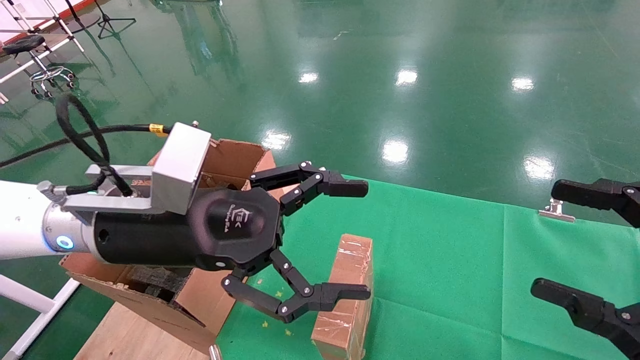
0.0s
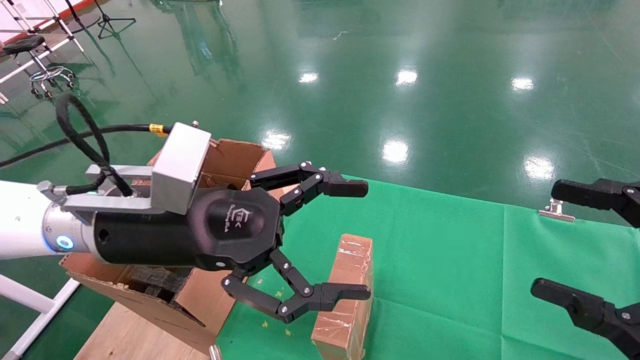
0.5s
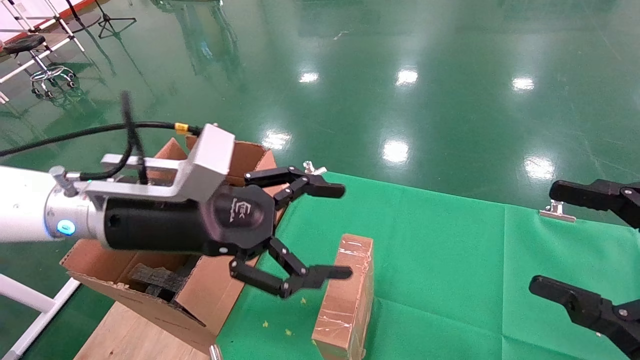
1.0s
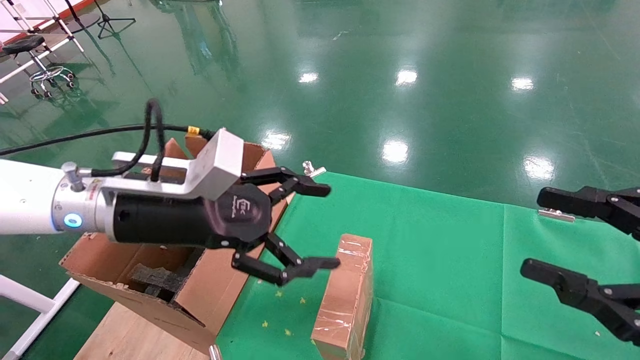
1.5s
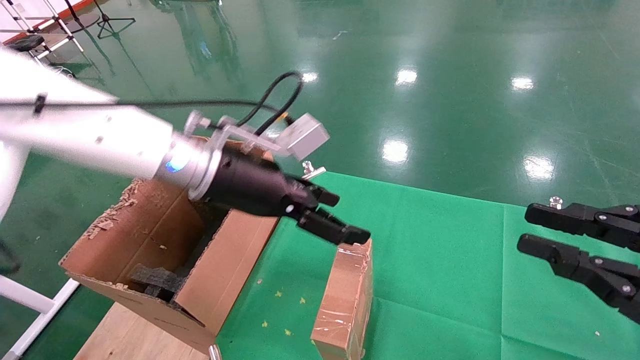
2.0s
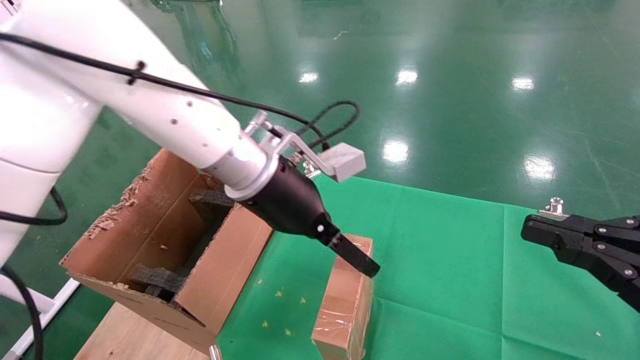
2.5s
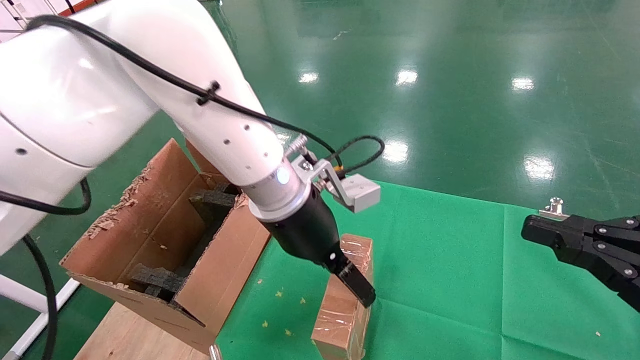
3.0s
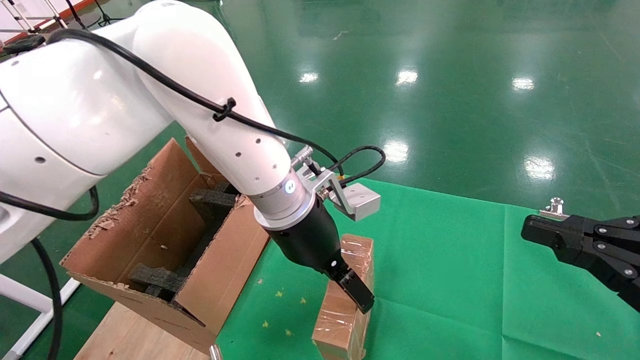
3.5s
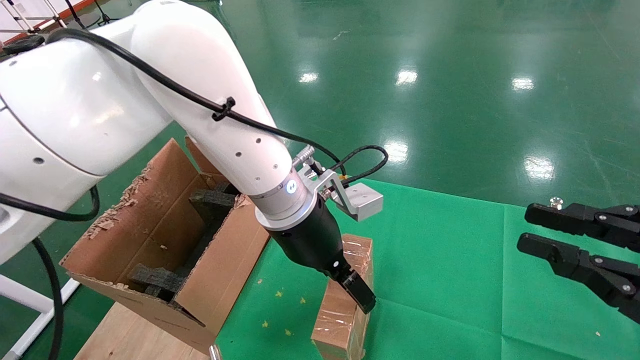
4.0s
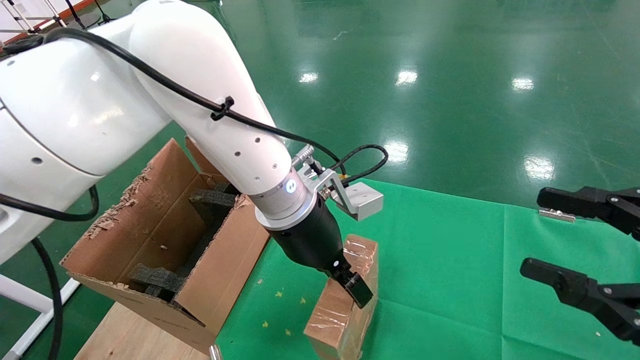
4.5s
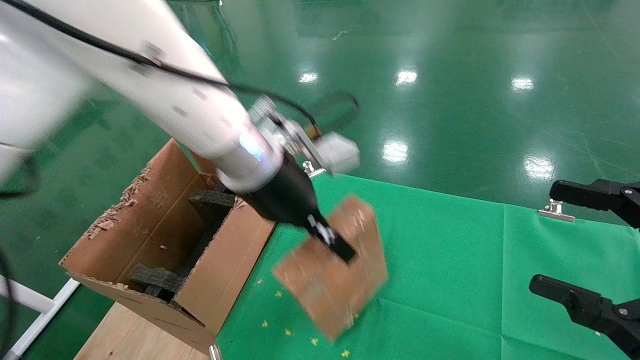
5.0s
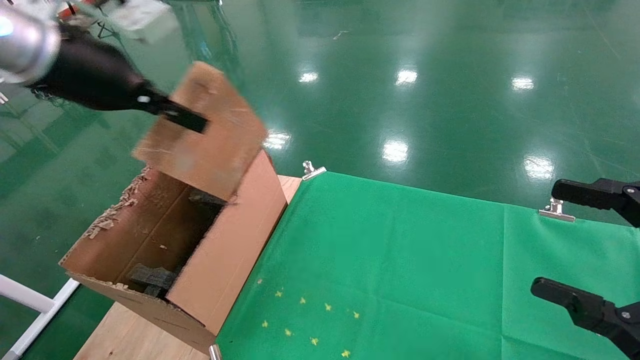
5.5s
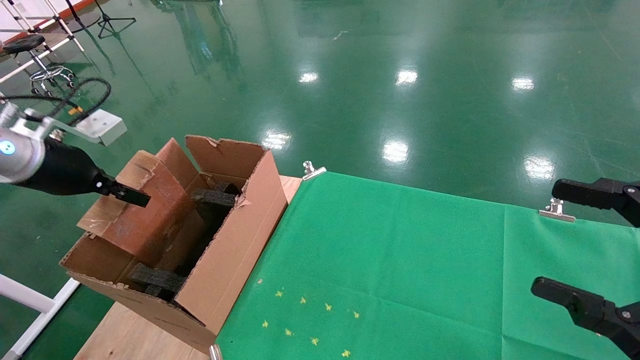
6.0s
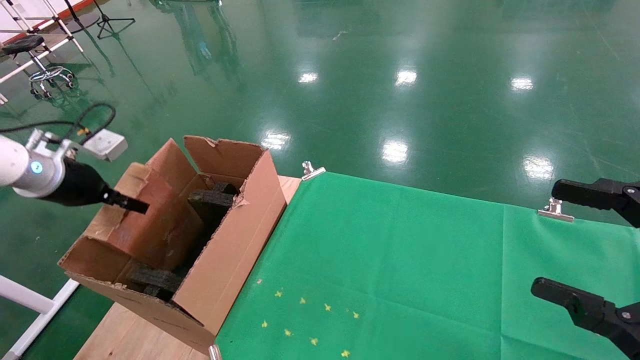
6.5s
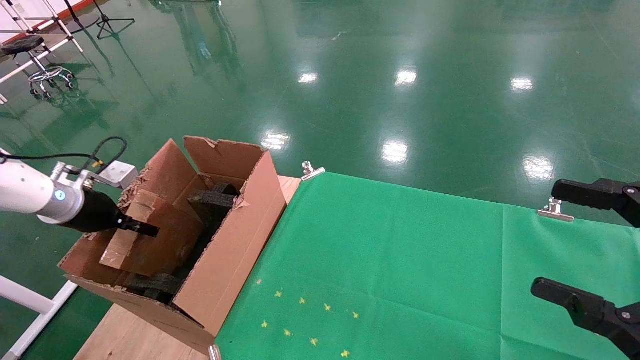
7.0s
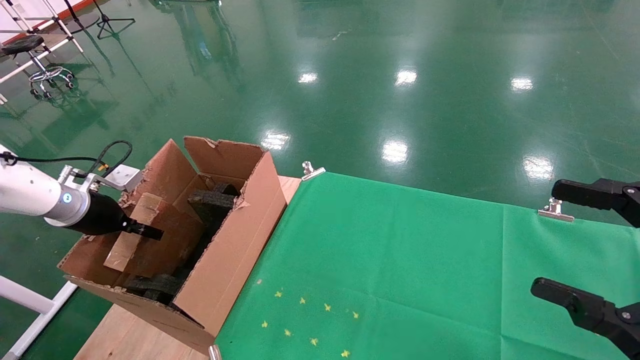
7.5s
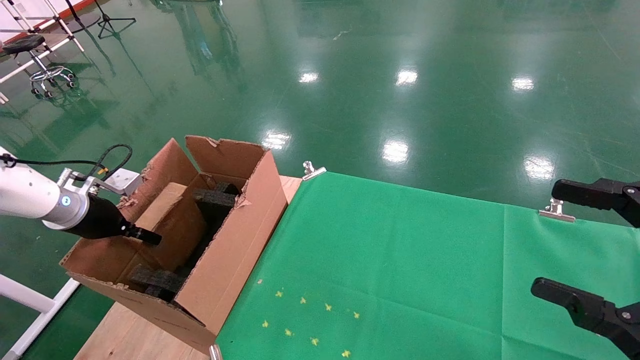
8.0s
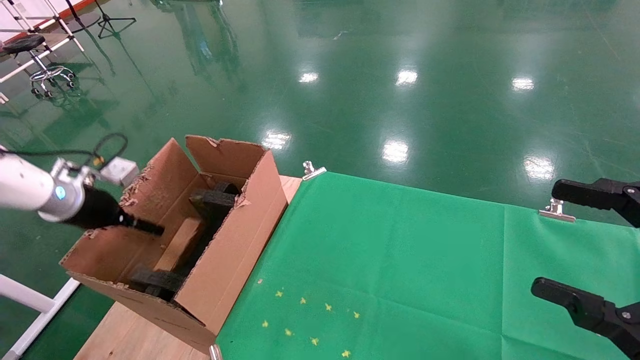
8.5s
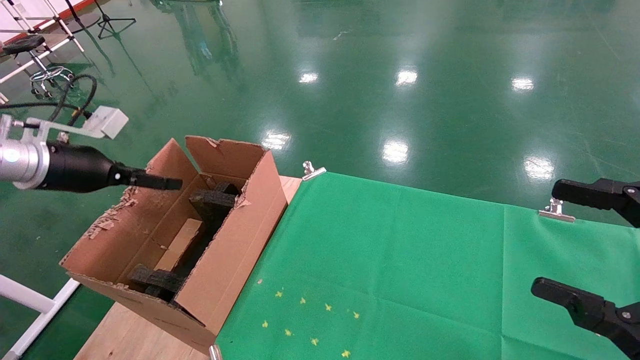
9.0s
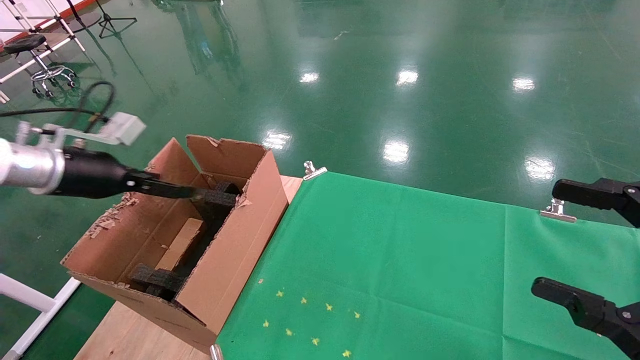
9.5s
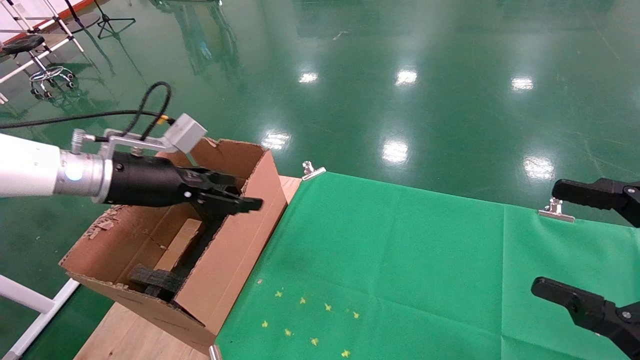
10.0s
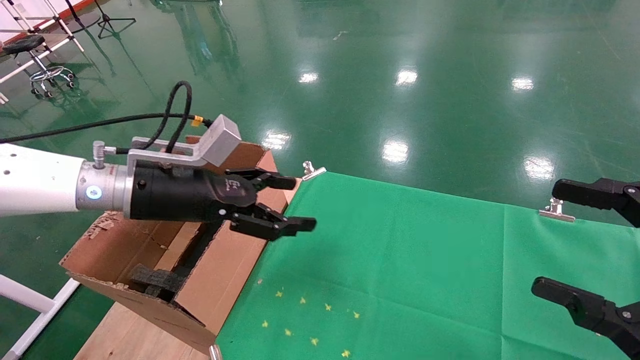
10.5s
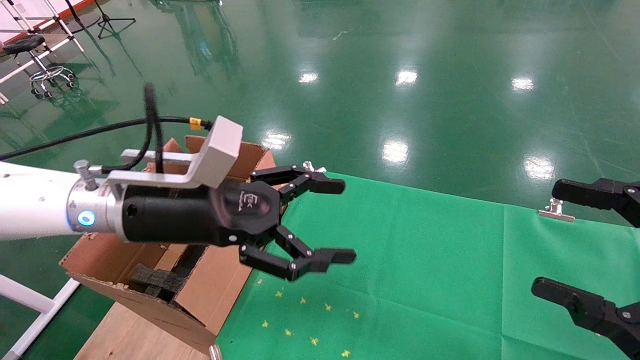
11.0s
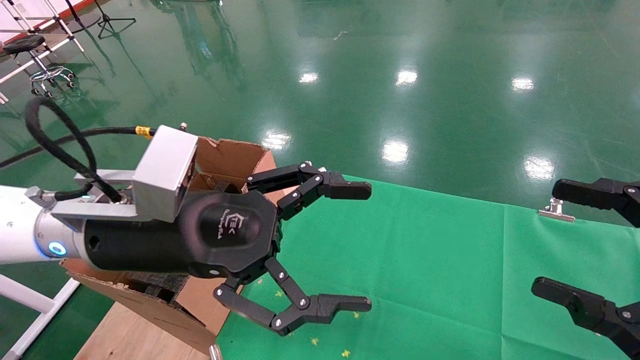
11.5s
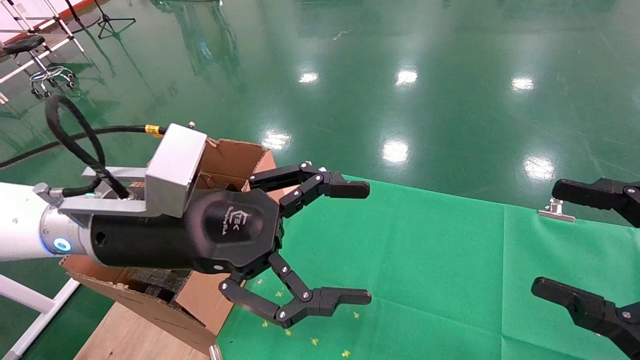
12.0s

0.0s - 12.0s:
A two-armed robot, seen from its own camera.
Task of the whole recording: using a robotic arm to pick up a cardboard box and palace it the carton.
Step, 1.0s - 4.5s: Pick up the mouse and the power cord paper box.
Step, 5.0s - 9.5s: Place the mouse and the power cord paper box into the container.
0.0s - 2.0s: The left gripper heads forward, covering about 10 cm. Meanwhile the right gripper closes.
2.0s - 4.0s: The left gripper heads to the right, covering about 10 cm.
4.0s - 6.0s: The right gripper opens its fingers. Meanwhile the left gripper is displaced to the left by about 35 cm, and closes up.
6.0s - 8.0s: The left gripper goes approximately 15 cm downward, to the left and forward.
8.0s - 10.0s: The left gripper shifts some 15 cm to the right and upward, and opens up.
10.0s - 12.0s: The left gripper is displaced to the right and backward by roughly 15 cm.

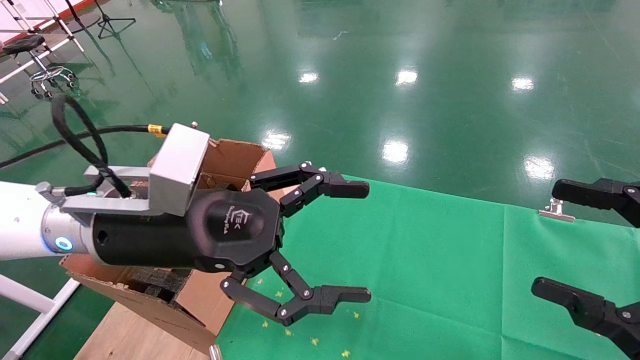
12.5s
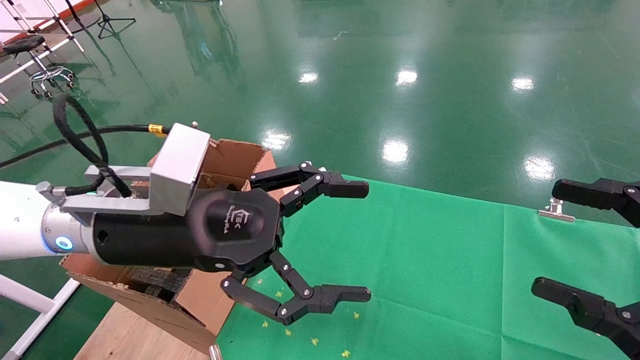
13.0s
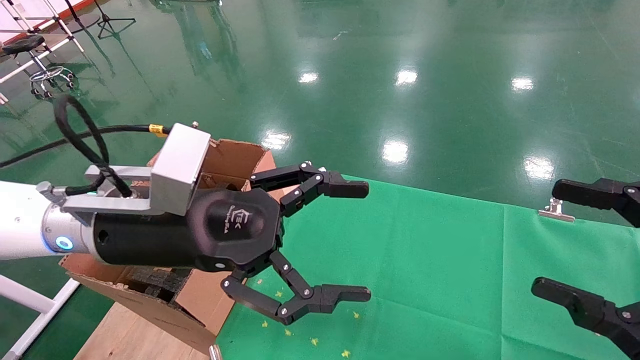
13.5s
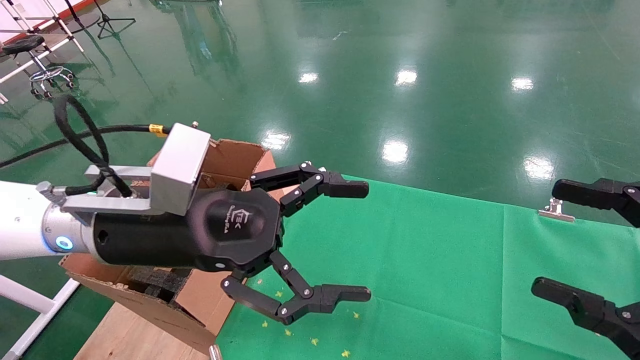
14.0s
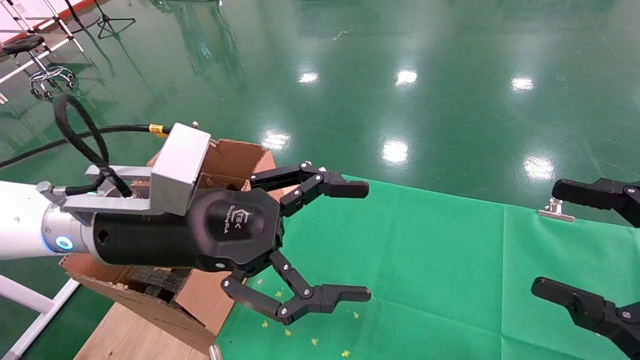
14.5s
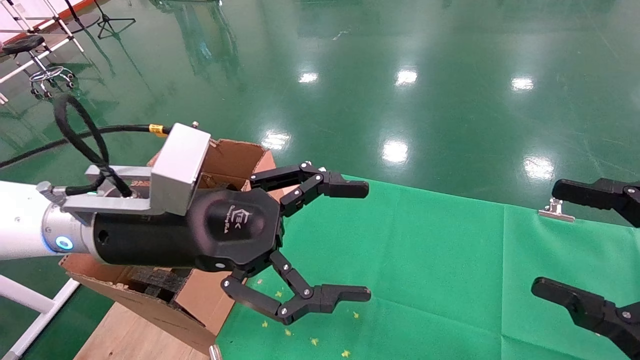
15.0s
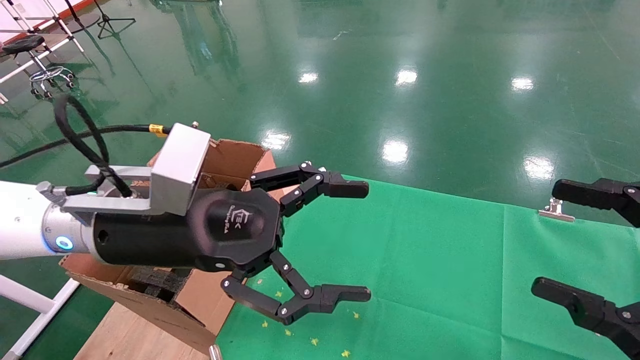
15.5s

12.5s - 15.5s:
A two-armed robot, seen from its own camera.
Task of the whole recording: using a robotic arm to pick up a cardboard box and palace it the carton.
12.5s - 15.5s: Neither gripper changes place.

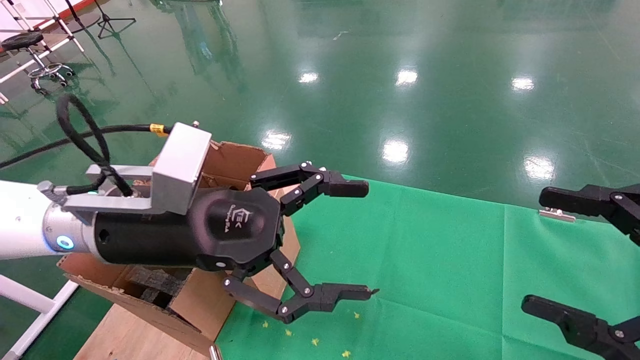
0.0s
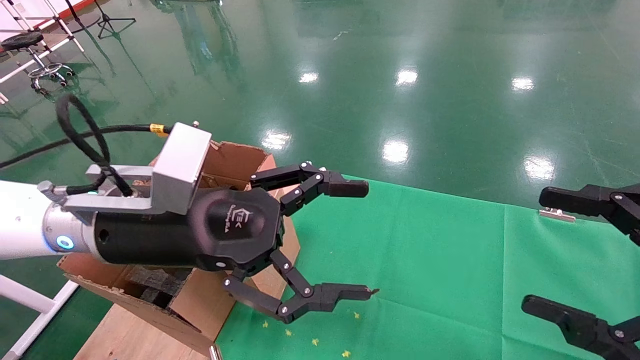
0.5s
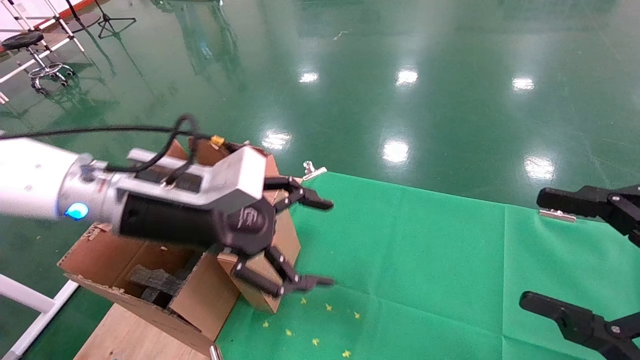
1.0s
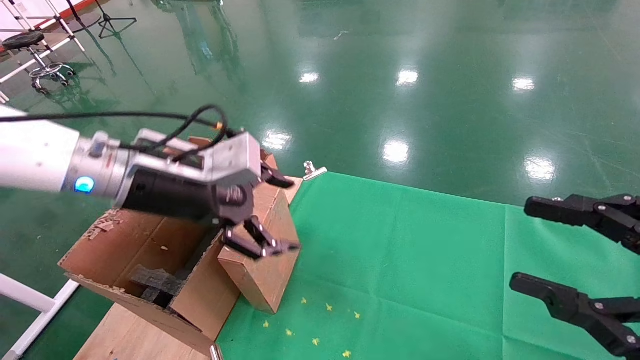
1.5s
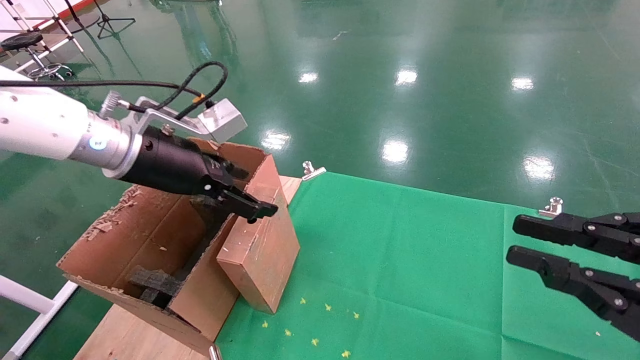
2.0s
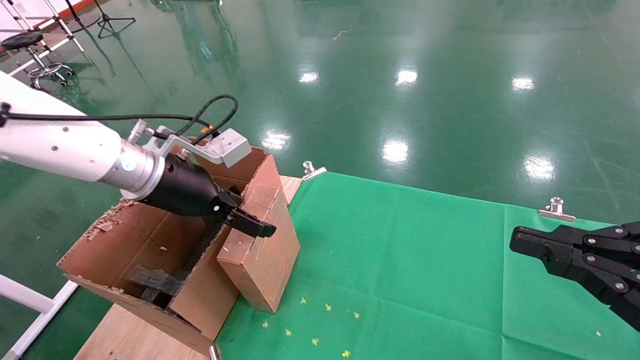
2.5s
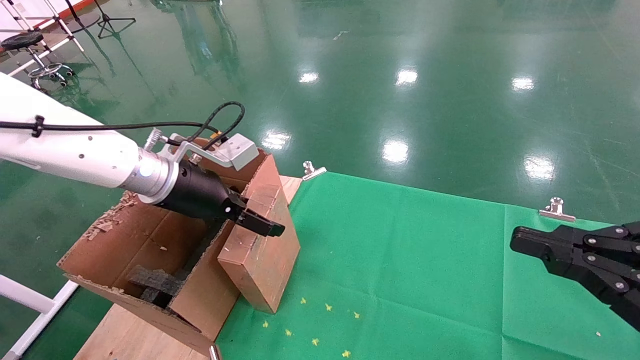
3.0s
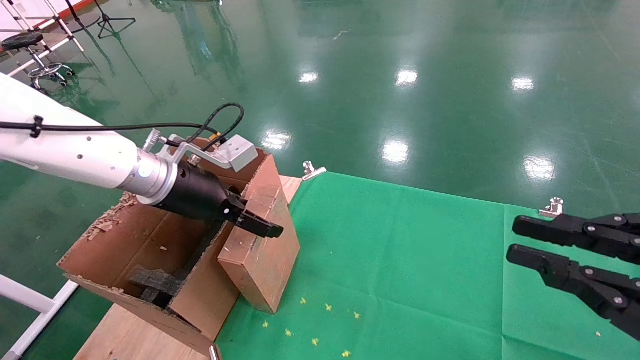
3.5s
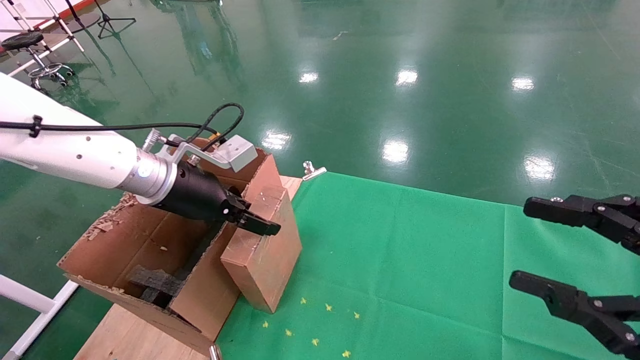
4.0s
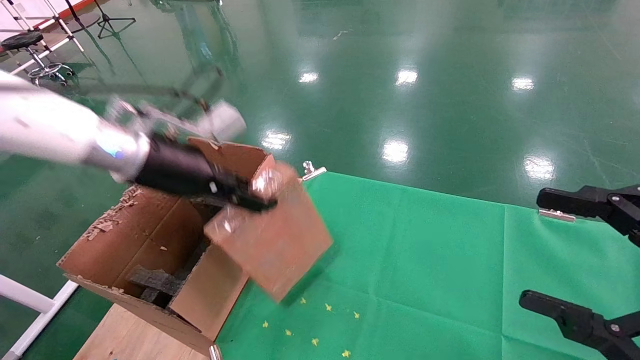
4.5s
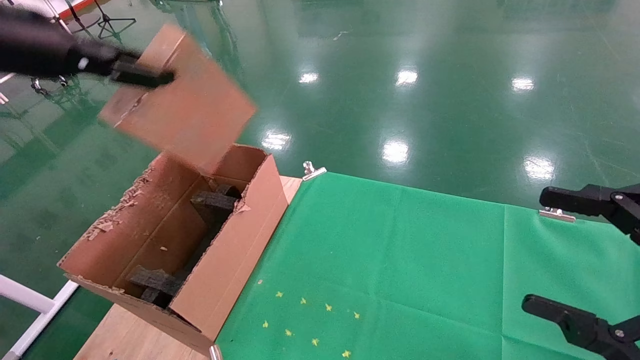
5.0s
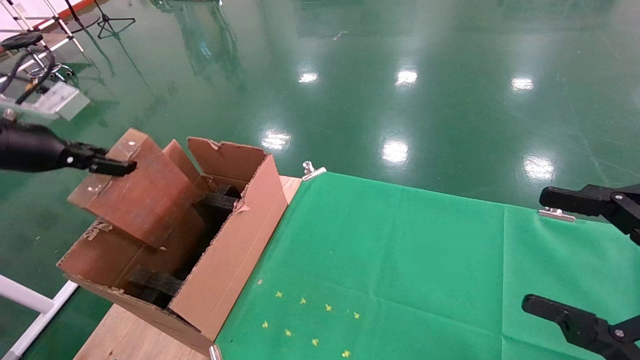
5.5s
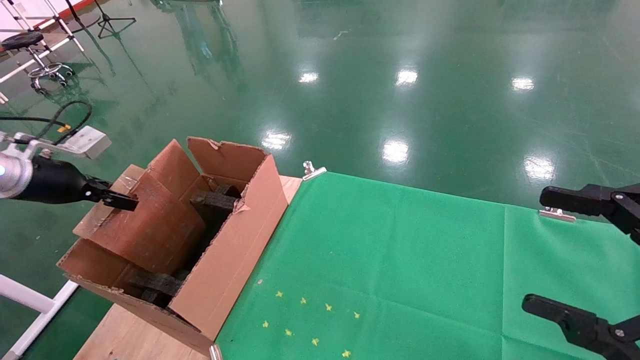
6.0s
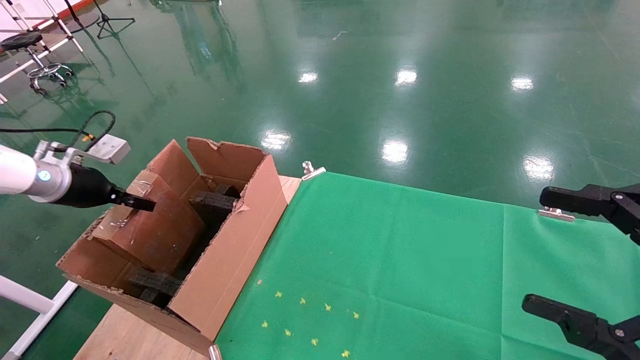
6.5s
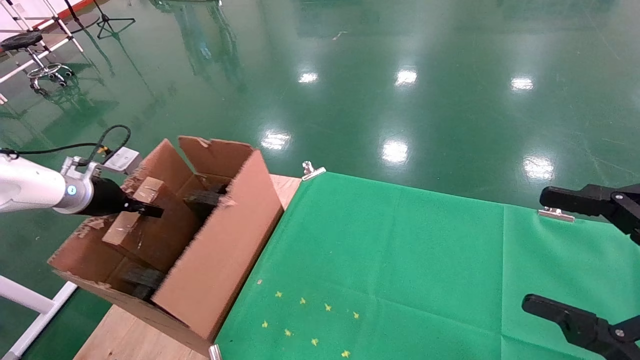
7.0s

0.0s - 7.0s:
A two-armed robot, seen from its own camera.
Task of the whole recording: using a robotic arm to pick up a cardboard box and palace it the carton.
Step, 1.0s - 4.0s: Pick up the mouse and the power cord paper box.
0.0s - 2.0s: The left gripper is displaced forward and to the left by about 10 cm. The right gripper closes its fingers.
2.0s - 3.5s: The left gripper moves roughly 5 cm.
3.5s - 5.0s: The left gripper is displaced upward, to the left and backward by approximately 20 cm, and closes up. Meanwhile the right gripper opens.
5.0s - 7.0s: The left gripper travels downward, forward and to the left by some 25 cm.
